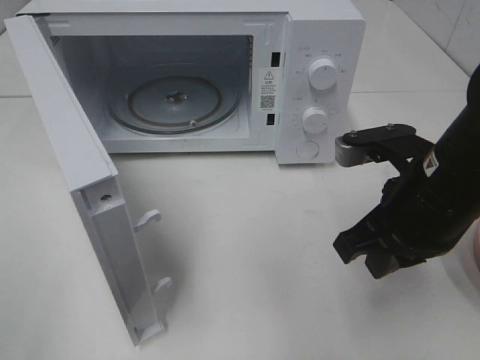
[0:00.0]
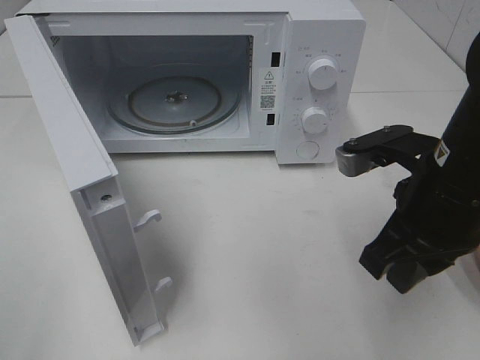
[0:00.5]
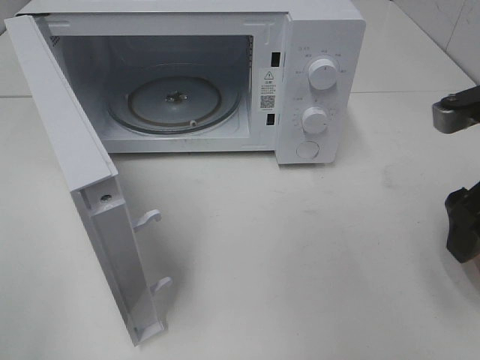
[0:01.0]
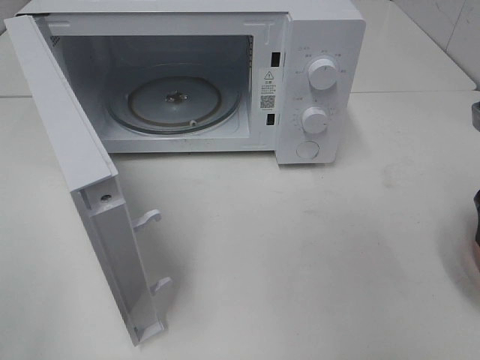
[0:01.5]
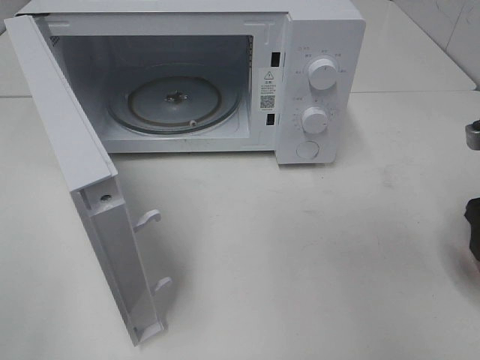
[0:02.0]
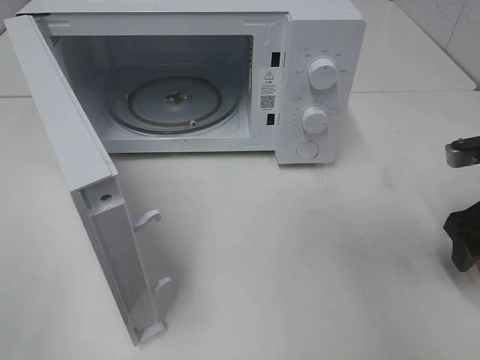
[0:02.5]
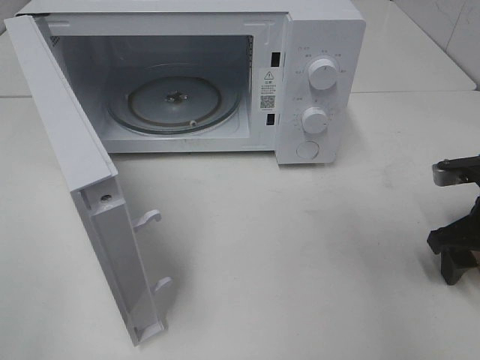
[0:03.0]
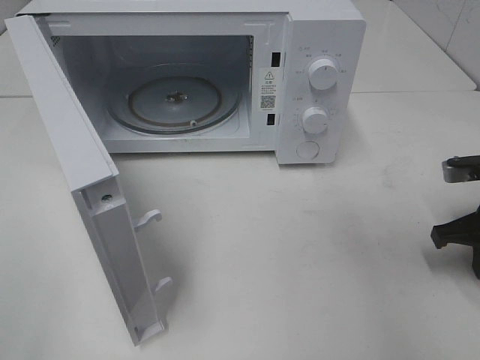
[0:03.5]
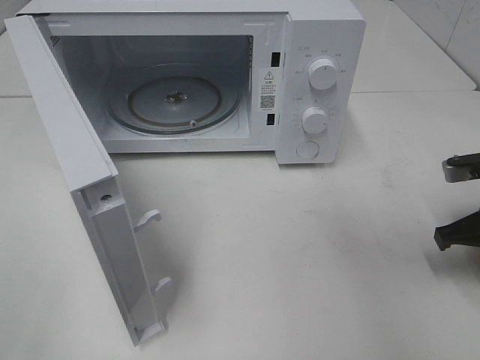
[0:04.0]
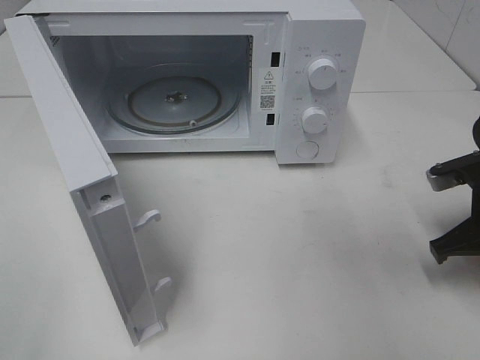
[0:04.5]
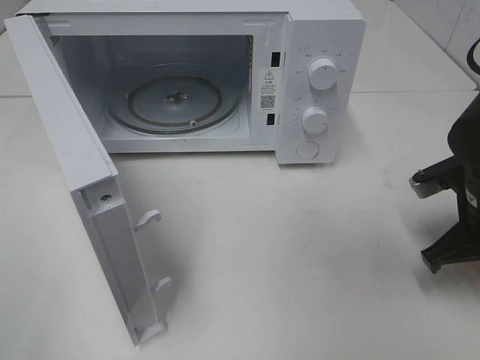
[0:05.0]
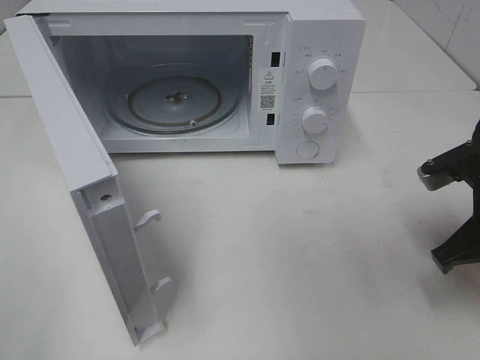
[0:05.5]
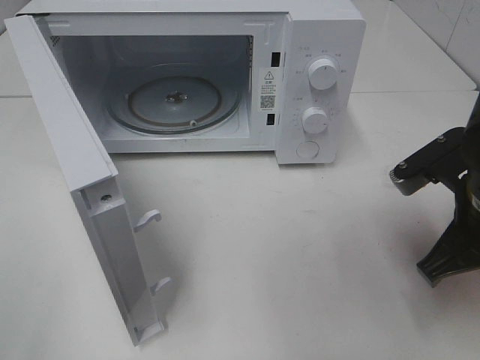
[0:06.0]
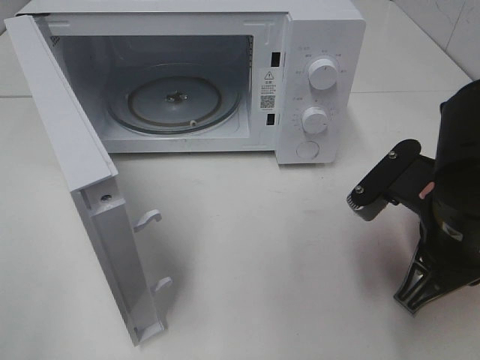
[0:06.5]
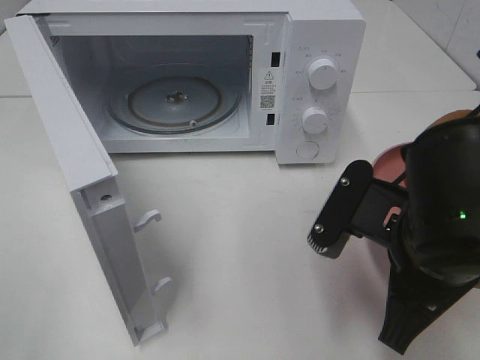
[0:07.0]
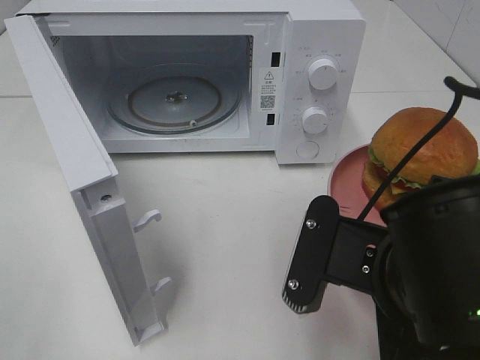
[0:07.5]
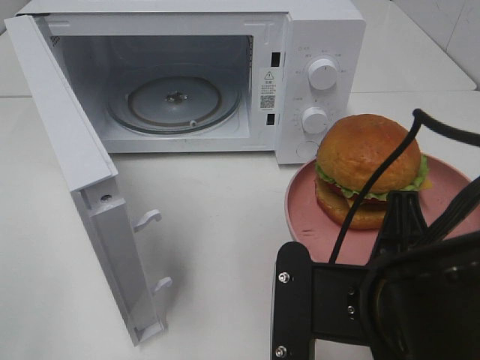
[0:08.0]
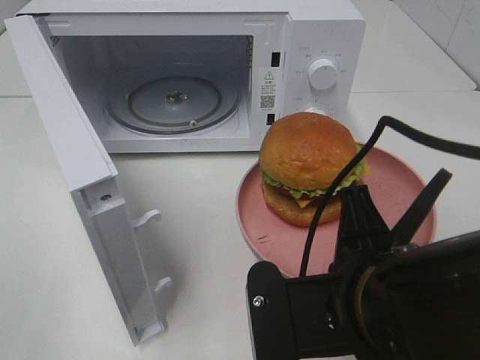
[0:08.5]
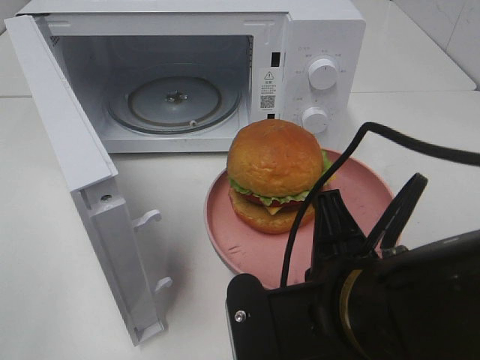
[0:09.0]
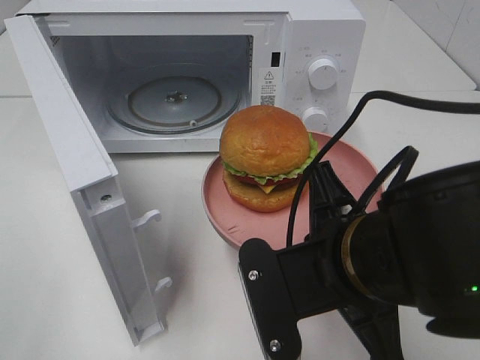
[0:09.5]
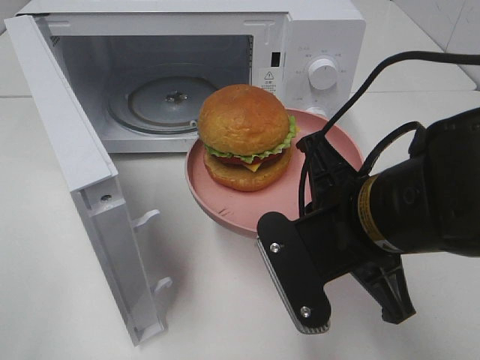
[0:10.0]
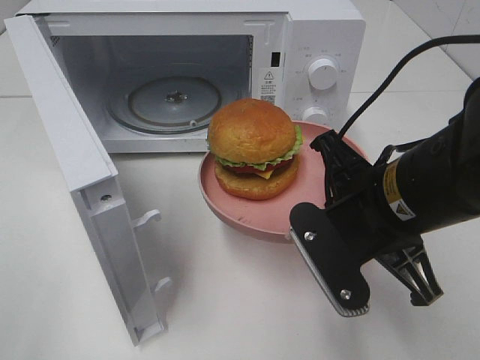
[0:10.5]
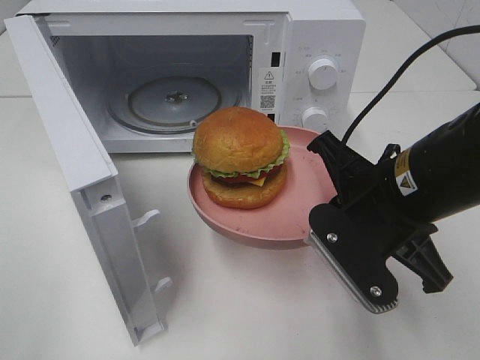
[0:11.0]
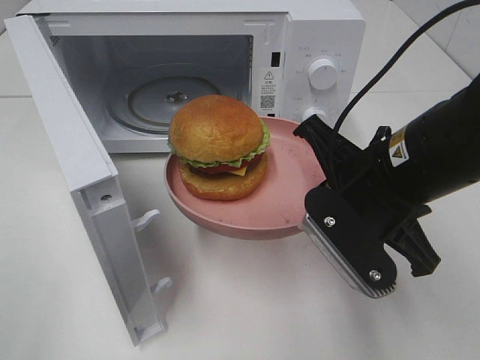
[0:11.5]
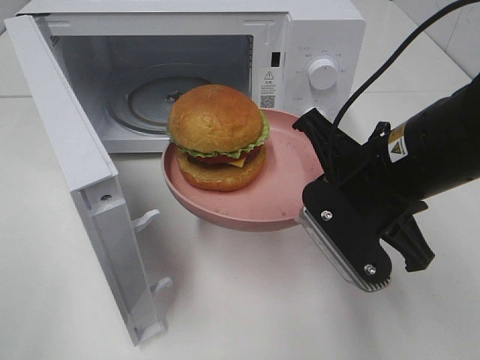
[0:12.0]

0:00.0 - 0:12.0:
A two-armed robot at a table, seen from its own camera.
Task of the whole recording: Heat the burger.
Step, 0:00.0 - 0:04.0: Right hand: grab the plate with the hamburger.
0:00.0 - 0:02.0: The right gripper is displaced to the right by roughly 15 cm, and opens up.
0:02.0 - 0:04.0: The right gripper moves downward, some 5 cm, and closes.
0:04.0 - 0:06.0: The right gripper is displaced to the left, backward and upward by some 10 cm.
0:06.0 - 0:08.0: The right gripper shifts approximately 15 cm to the left and backward.
0:08.0 - 0:10.0: The right gripper goes about 5 cm forward.
0:10.0 - 0:12.0: The right gripper moves approximately 5 cm.

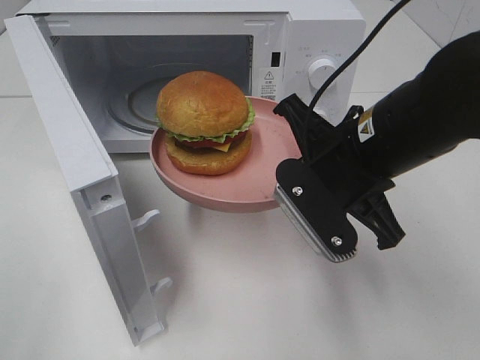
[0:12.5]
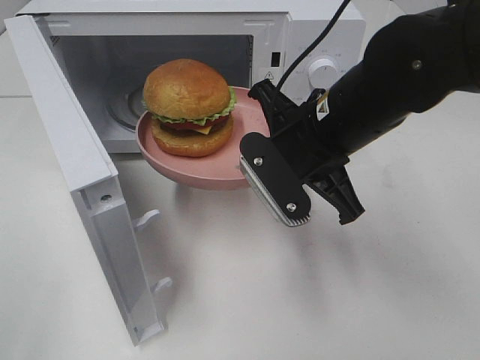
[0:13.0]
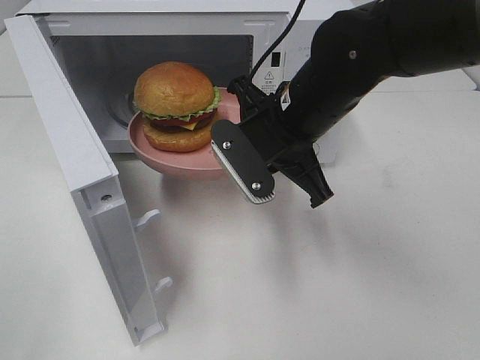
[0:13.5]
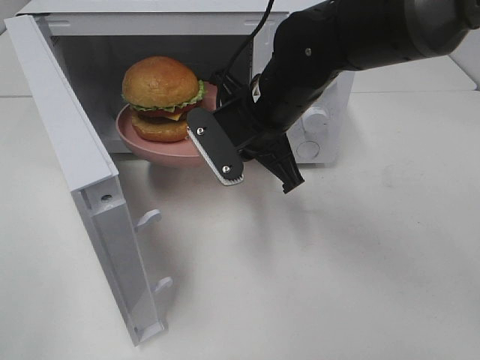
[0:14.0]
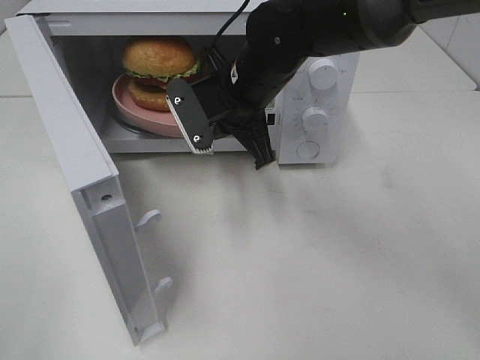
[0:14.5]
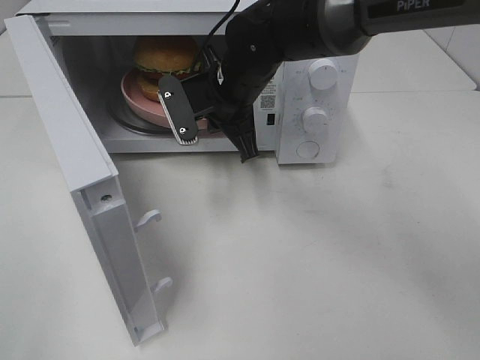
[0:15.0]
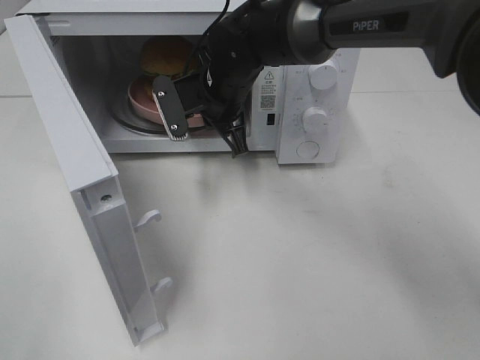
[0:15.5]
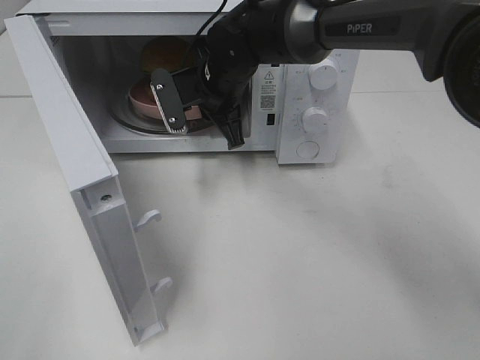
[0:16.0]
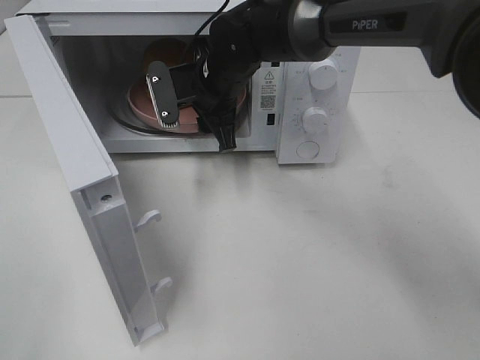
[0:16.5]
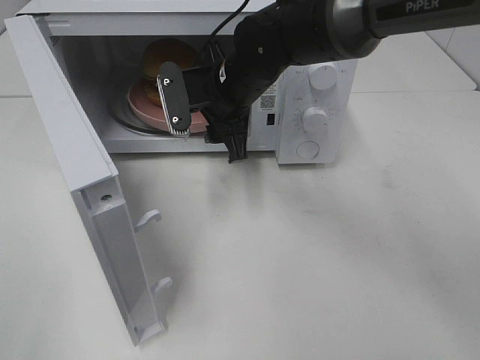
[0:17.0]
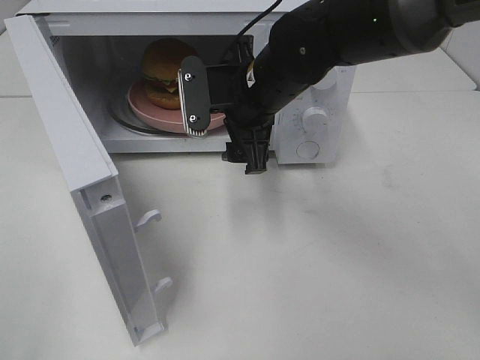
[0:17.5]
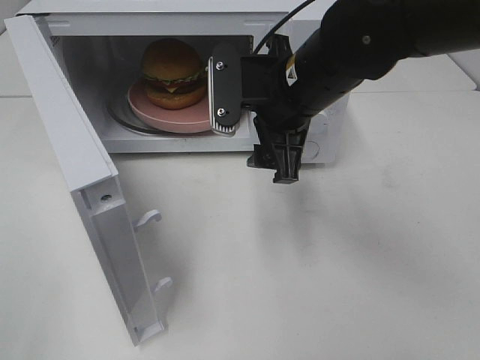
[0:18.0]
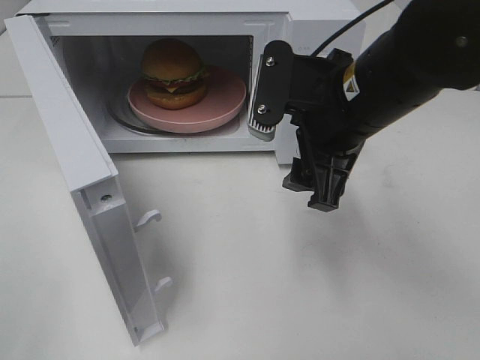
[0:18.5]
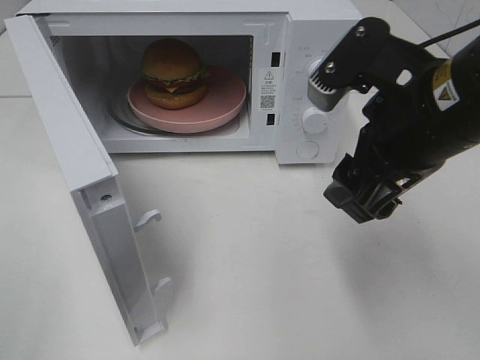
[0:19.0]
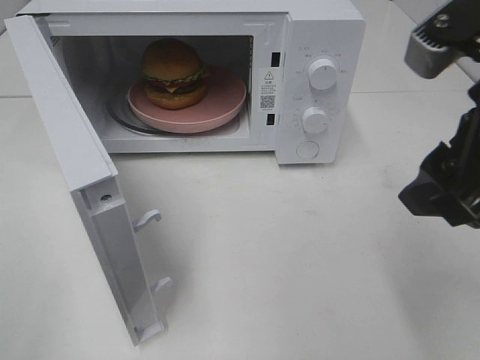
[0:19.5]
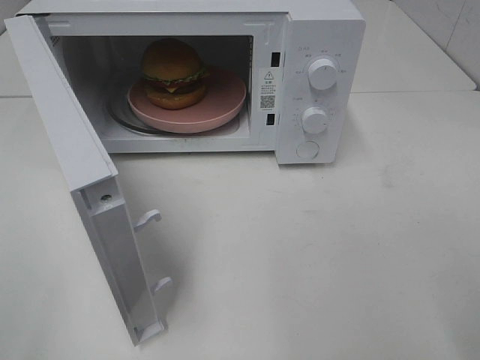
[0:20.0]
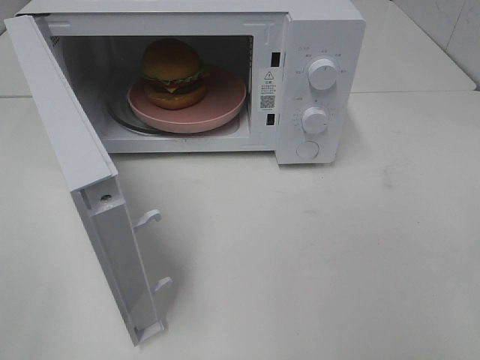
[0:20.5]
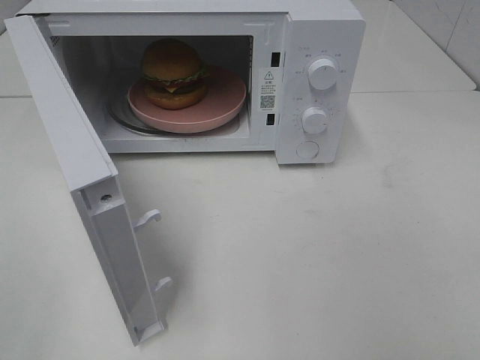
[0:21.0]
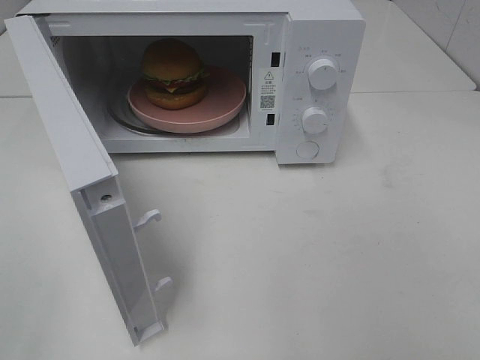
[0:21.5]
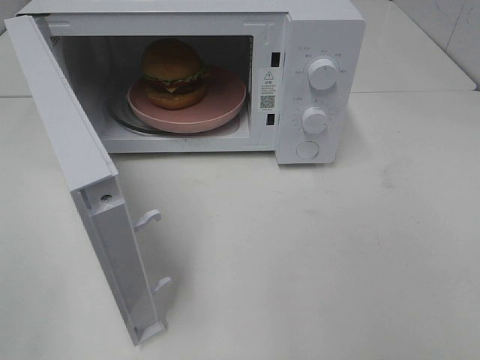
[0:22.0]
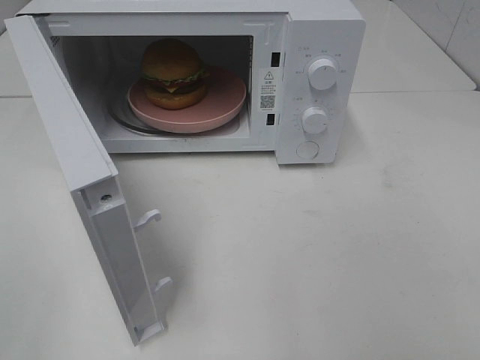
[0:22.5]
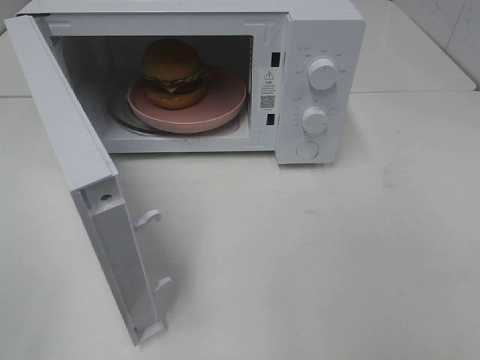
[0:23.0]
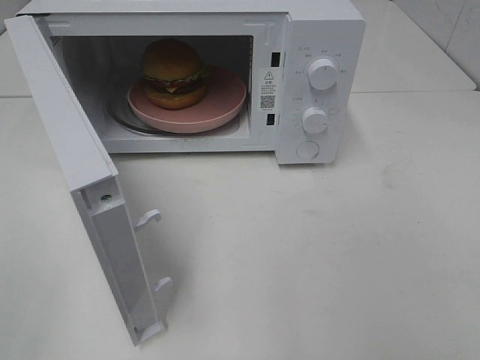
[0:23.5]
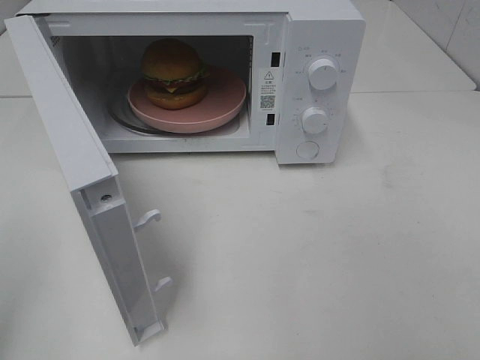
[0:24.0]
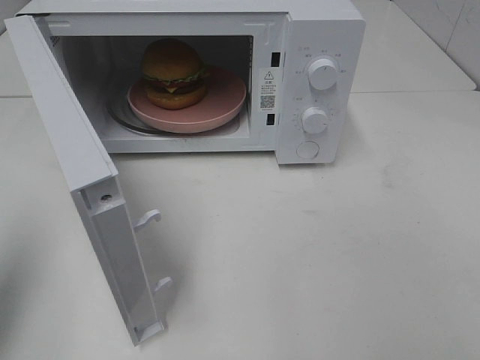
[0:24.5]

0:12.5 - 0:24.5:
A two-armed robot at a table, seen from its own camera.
Task of the whole recording: Heat the burger.
Step, 0:12.5 - 0:16.5: Right hand: place the plate in the microwave.
0:12.5 - 0:14.5: The right gripper heads forward and to the left, covering some 15 cm.
0:14.5 - 0:16.5: The right gripper heads forward, covering roughly 5 cm, and opens.
0:16.5 - 0:18.5: The right gripper is displaced backward and to the right by about 20 cm.
0:18.5 - 0:20.5: The right gripper goes approximately 25 cm backward and to the right.
0:22.5 - 0:24.5: The left gripper heads forward, covering roughly 15 cm, and closes.

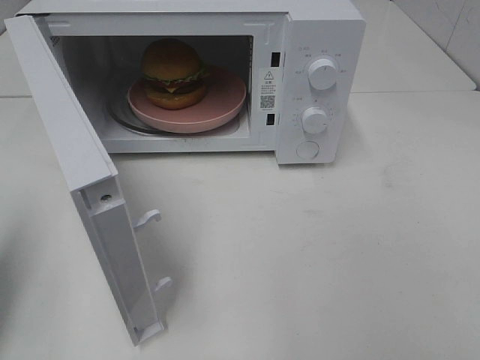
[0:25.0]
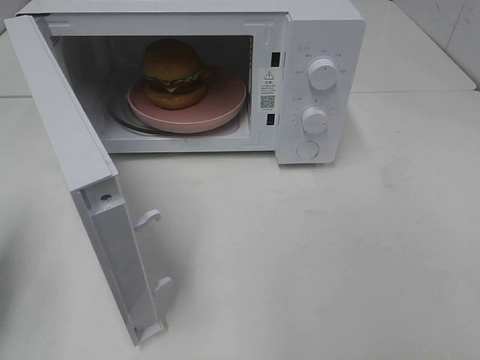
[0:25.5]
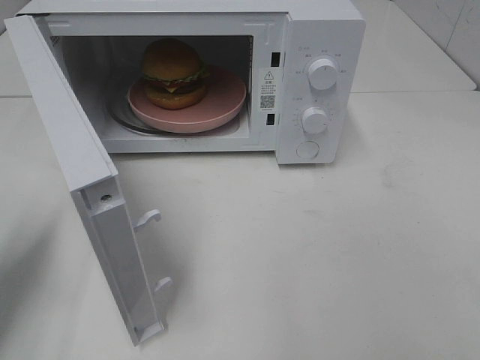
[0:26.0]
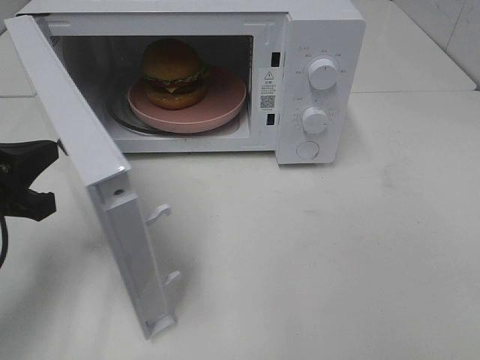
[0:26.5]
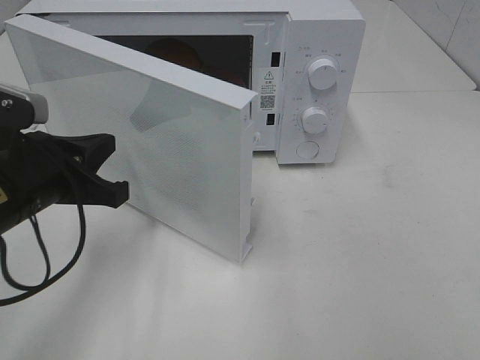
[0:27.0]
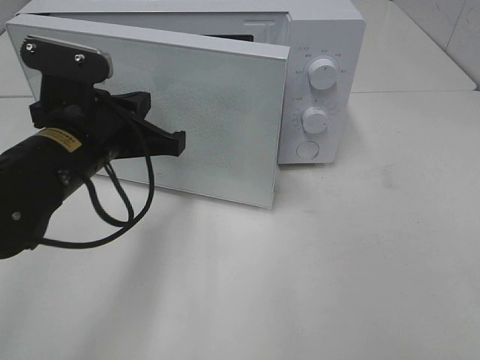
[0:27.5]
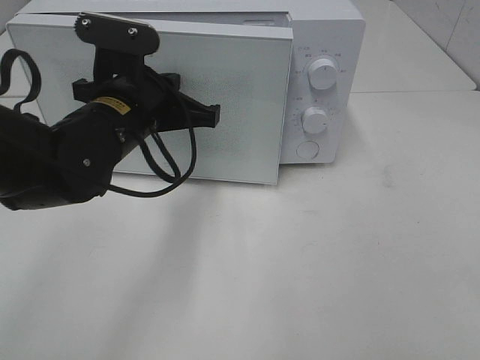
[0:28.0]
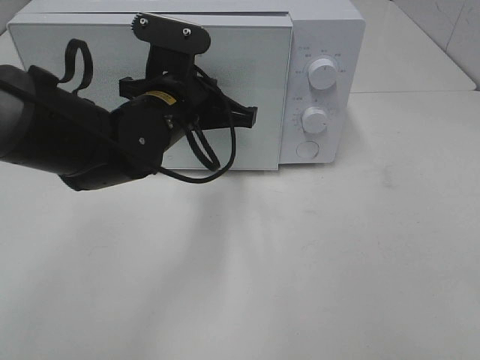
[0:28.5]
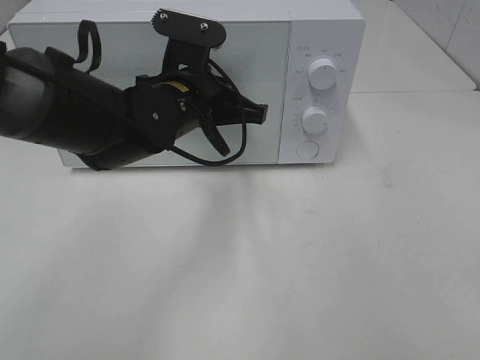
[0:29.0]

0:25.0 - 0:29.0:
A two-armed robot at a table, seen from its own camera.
Task of the whole recording: Heat the burger.
0:25.0 - 0:27.0: The left gripper heads to the right, downward and forward, covering approximately 20 cm.
0:27.0 - 0:29.0: The left gripper is displaced to the right and forward by some 20 cm.
